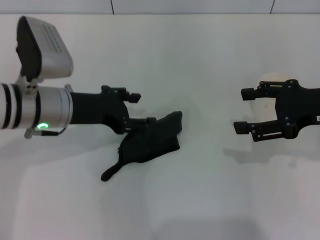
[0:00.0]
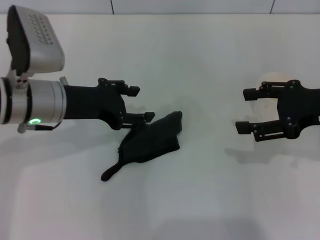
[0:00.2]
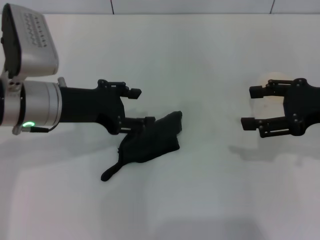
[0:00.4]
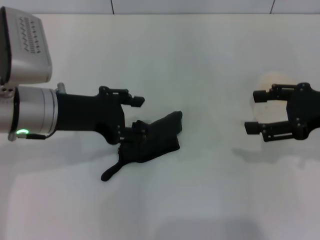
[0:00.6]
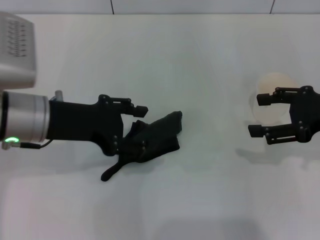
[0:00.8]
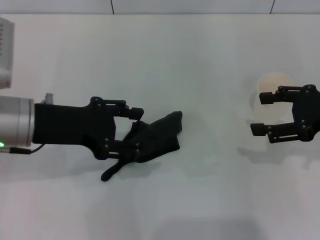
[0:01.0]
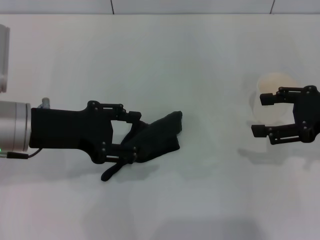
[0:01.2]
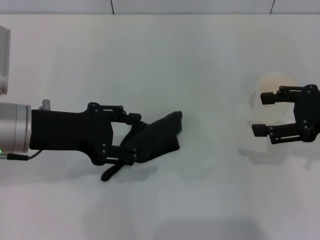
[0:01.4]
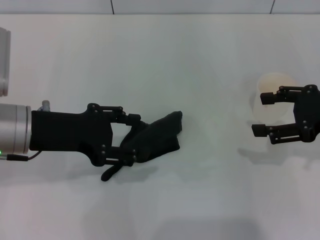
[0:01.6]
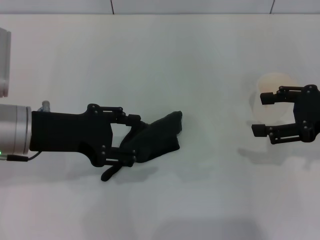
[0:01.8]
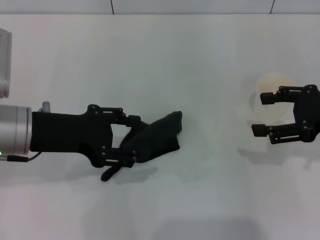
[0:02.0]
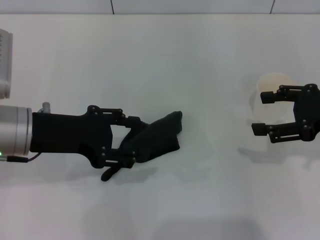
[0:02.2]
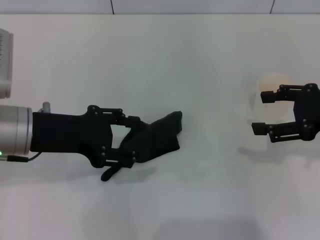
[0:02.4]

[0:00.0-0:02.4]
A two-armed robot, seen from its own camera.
0:00.0 to 0:01.2: The left gripper changes place by some 5 cm.
0:01.2 to 0:02.4: Both grippers stay put.
